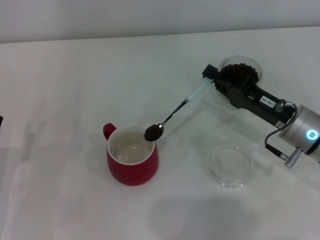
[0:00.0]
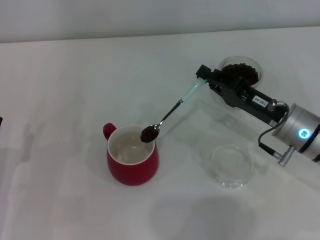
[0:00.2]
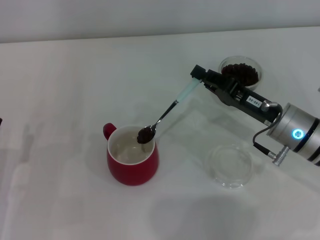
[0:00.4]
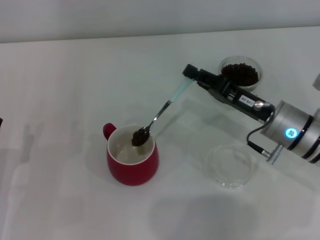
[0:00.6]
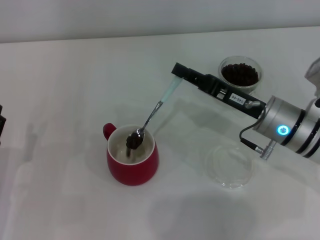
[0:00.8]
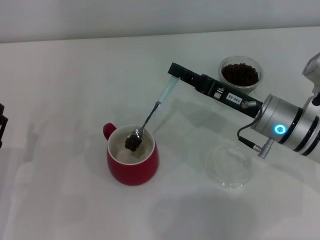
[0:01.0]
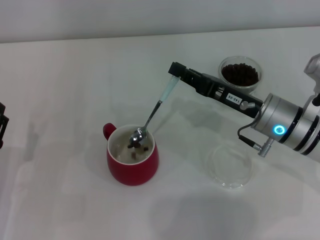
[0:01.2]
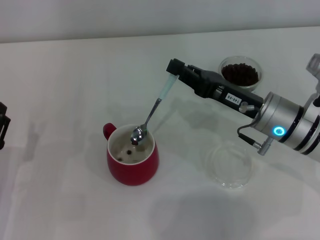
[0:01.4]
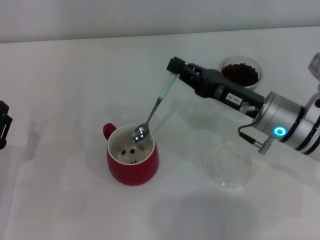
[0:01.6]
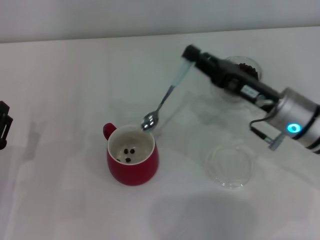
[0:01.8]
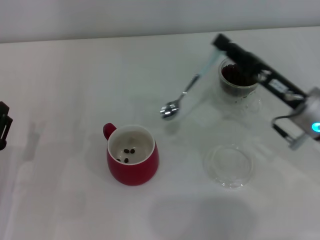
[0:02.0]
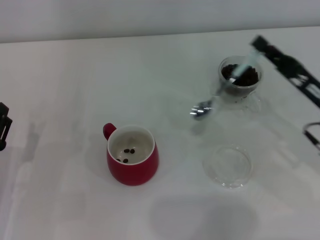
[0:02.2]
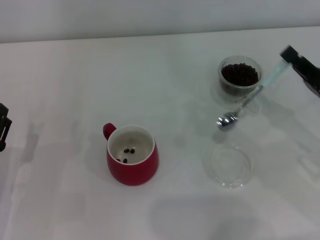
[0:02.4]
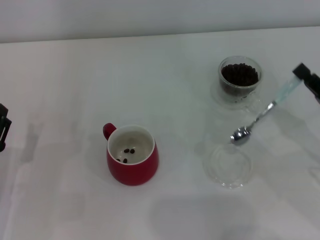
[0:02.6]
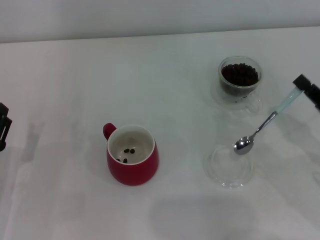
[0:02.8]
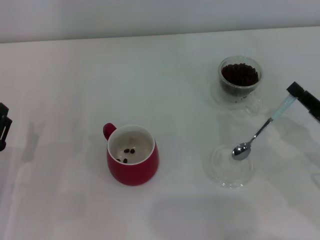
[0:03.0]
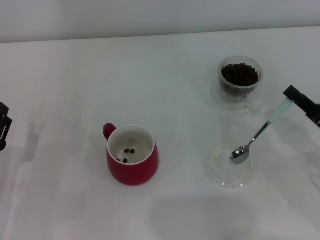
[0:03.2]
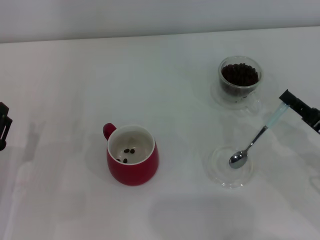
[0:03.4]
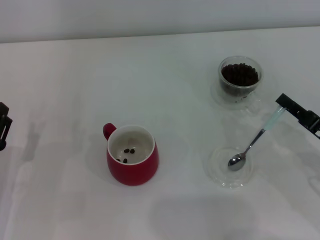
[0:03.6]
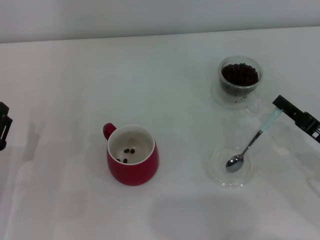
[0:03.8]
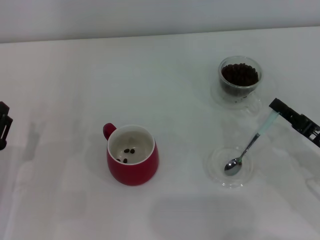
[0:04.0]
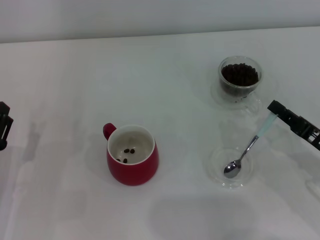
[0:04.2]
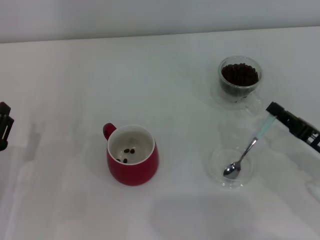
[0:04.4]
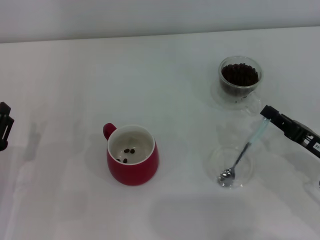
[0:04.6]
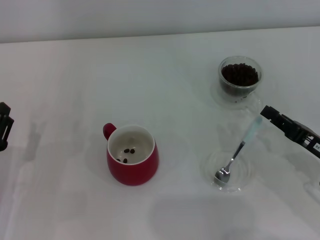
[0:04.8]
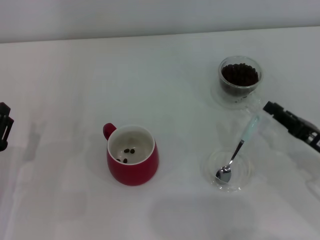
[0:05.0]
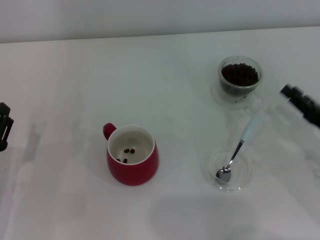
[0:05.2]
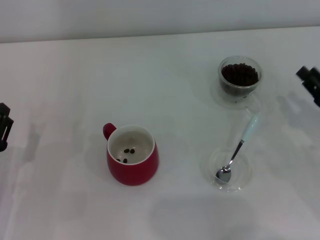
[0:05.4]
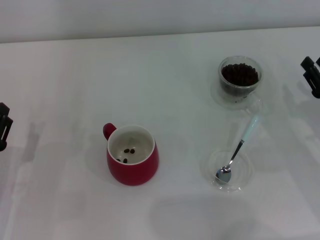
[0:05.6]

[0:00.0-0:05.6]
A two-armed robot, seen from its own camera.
Task of the whole recording: Use a blue spoon to take out the coffee beans from the glass and pour them into the red cup.
Step, 0:02.0 to 0:05.0: Place the spoon back in its original place with the right gripper.
0:01.4 to 0:02.8: The right gripper goes about 15 cm to the right and backward.
0:02.8 to 0:04.2: The grippers move only a little.
0:04.2 to 0:05.6: The right gripper opens up.
